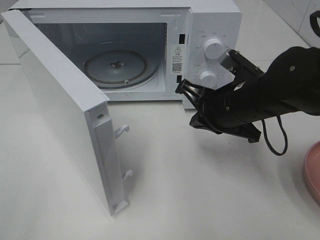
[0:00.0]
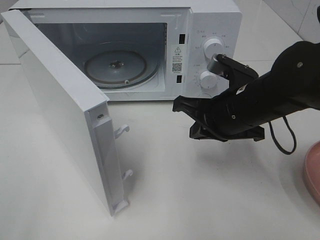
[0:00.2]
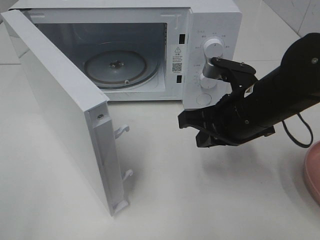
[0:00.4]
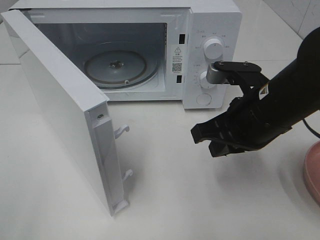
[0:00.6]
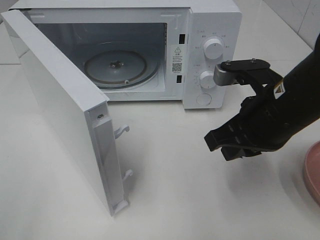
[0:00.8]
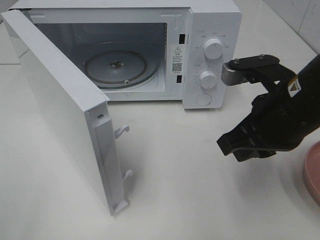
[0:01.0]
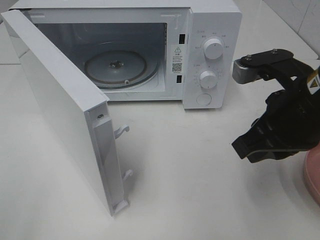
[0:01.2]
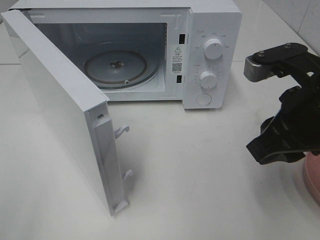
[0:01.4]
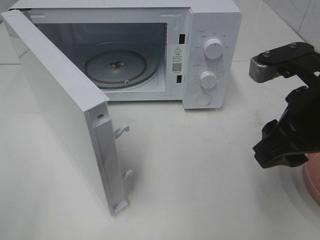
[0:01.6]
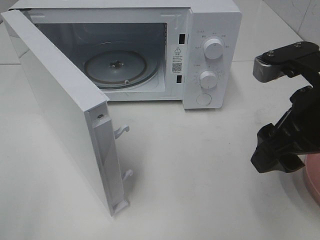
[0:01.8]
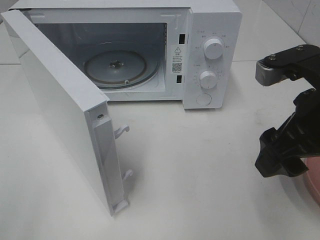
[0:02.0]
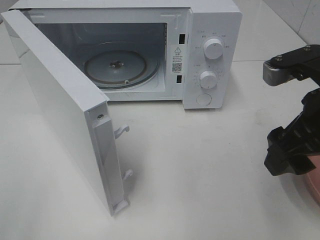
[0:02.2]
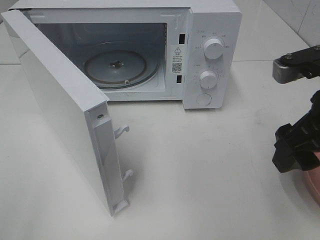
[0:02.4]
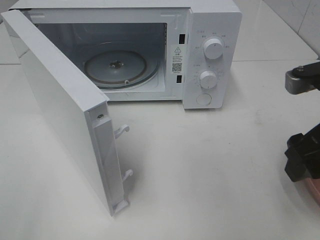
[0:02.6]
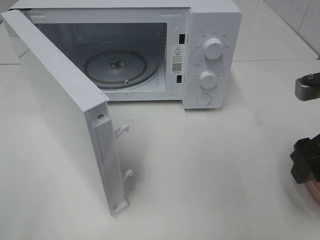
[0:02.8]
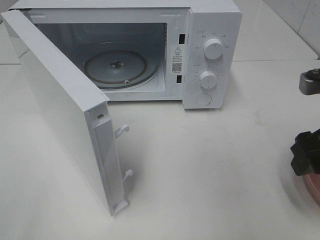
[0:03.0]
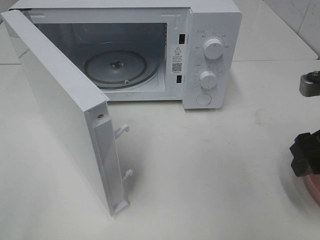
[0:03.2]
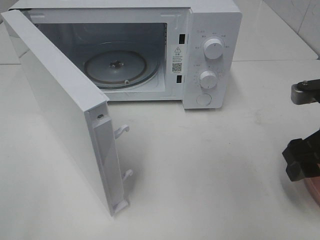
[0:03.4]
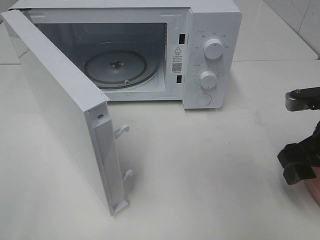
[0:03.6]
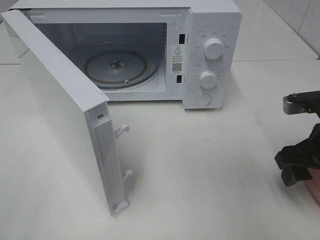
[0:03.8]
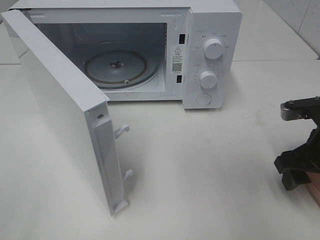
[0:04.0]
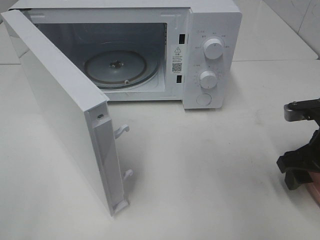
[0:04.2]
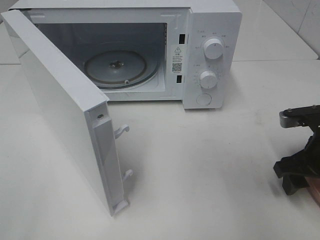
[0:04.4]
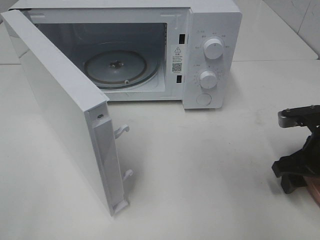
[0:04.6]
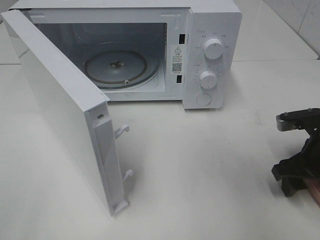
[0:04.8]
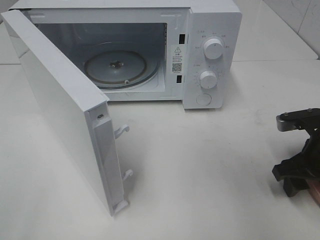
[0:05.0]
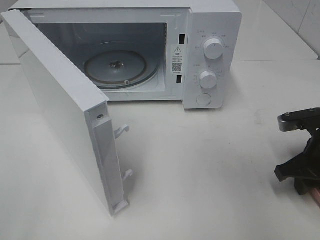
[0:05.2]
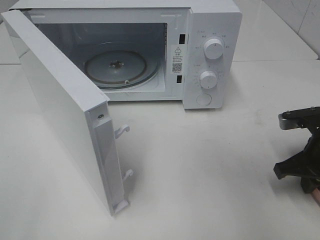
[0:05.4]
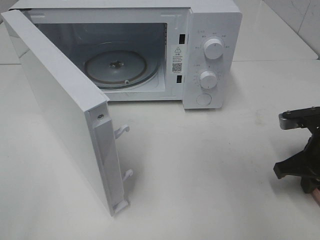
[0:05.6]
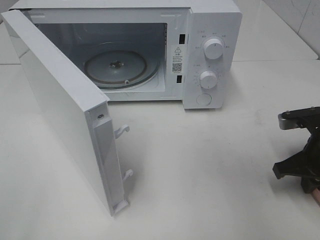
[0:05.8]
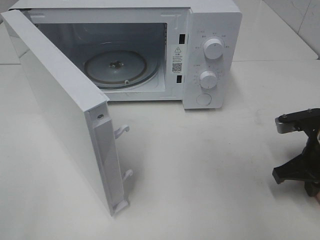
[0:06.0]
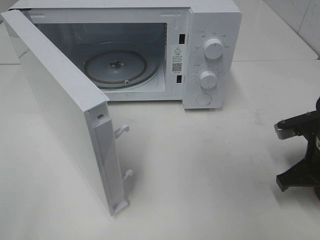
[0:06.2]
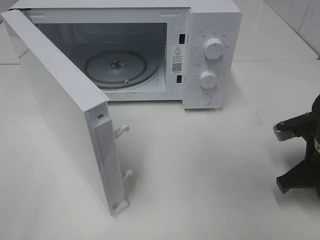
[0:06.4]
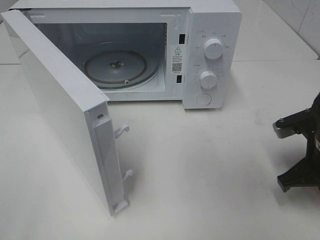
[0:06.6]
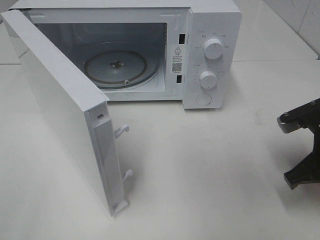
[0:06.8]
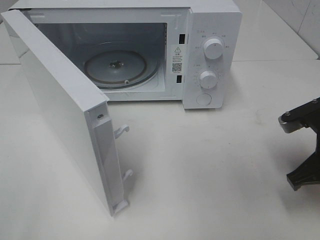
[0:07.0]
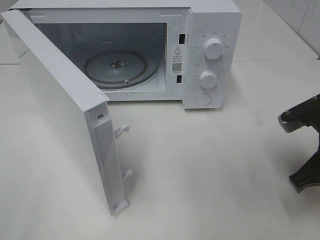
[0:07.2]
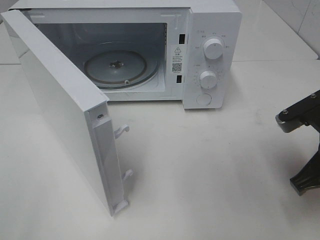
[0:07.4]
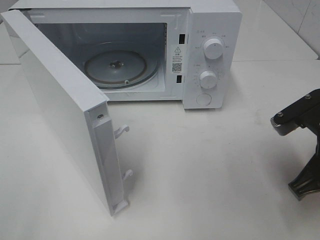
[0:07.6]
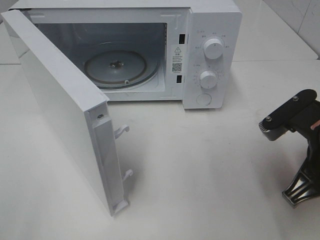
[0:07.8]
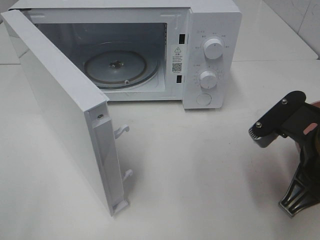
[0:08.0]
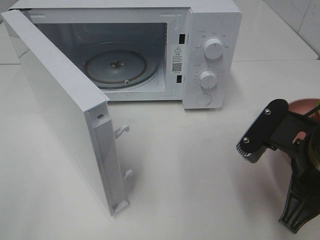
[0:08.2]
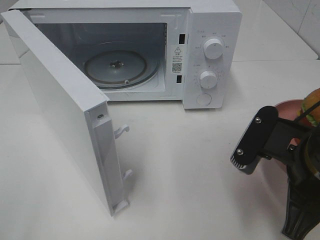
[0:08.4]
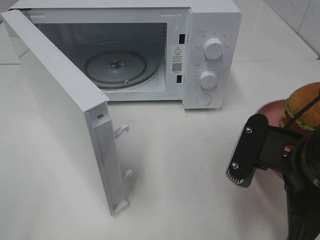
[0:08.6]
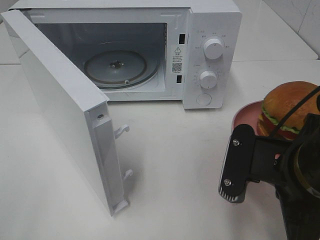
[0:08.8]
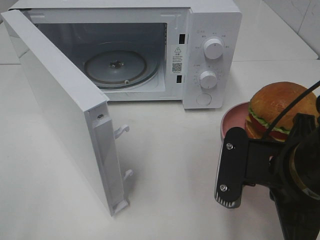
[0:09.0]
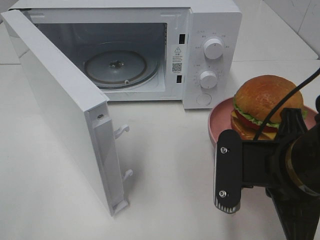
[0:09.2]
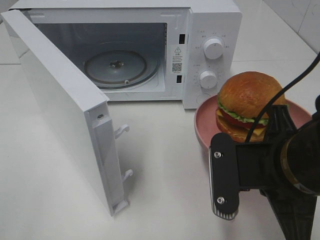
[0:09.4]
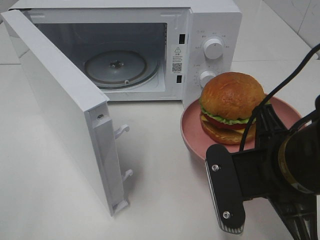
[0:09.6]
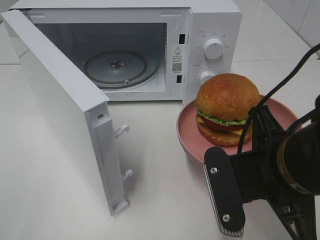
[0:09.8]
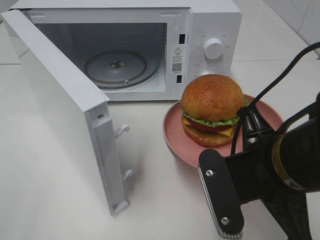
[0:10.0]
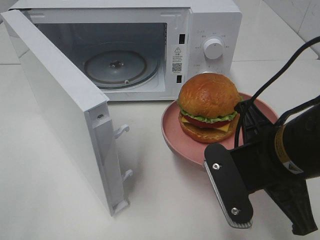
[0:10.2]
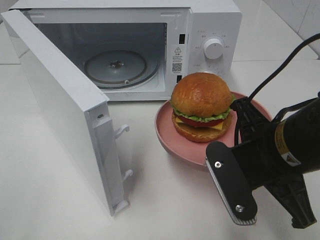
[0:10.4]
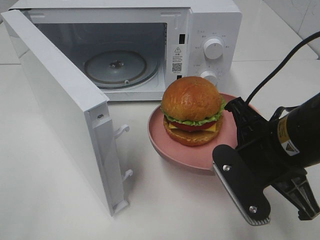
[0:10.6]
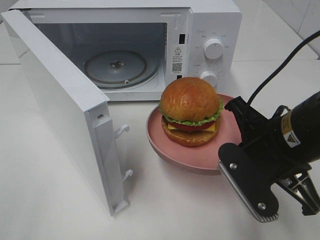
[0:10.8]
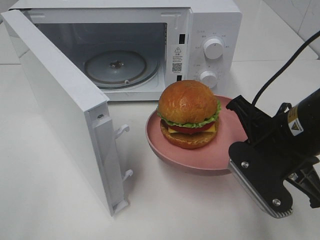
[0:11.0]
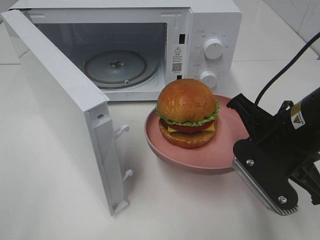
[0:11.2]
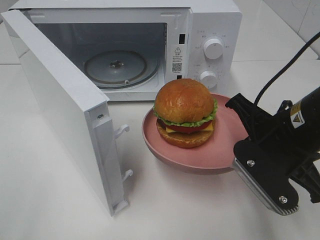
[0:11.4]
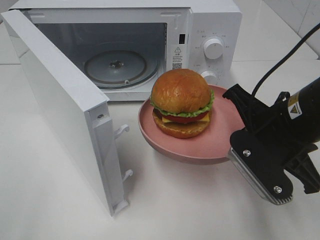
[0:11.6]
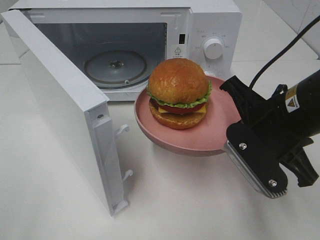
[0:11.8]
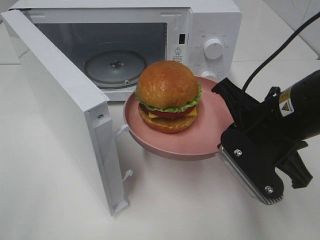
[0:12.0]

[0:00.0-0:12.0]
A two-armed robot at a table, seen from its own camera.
Task of the whole recording: Heat the burger.
Step, 0:00.0 to 0:05.8: Right hand: grab the plate with the hamburger.
0:00.0 to 0:01.6: The right gripper travels backward, upward and to the right by some 15 cm, and opens up.
0:01.6 to 0:03.0: The right gripper heads to the right, covering roughly 5 cm.
0:03.0 to 0:04.4: The right gripper moves downward, roughly 10 cm.
0:04.4 to 0:06.0: The right gripper closes.
0:06.0 to 0:07.6: The right gripper heads upward and backward, covering some 10 cm.
0:07.6 to 0:09.0: The right gripper heads to the left and backward, covering some 10 cm.

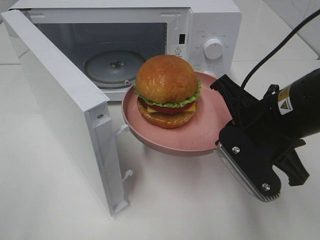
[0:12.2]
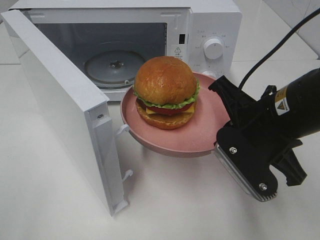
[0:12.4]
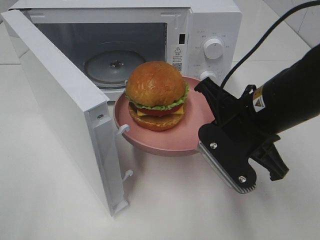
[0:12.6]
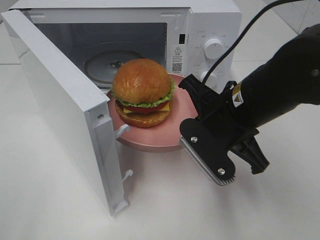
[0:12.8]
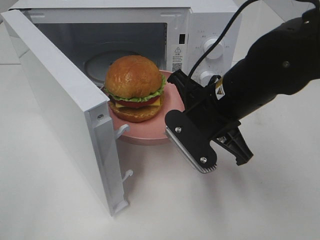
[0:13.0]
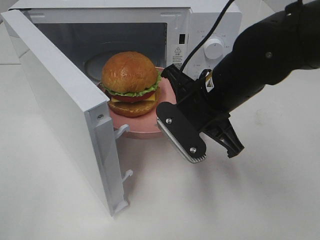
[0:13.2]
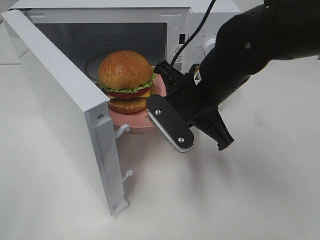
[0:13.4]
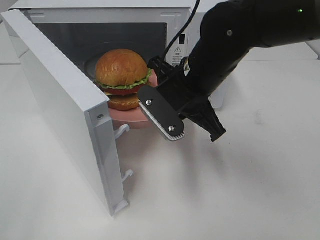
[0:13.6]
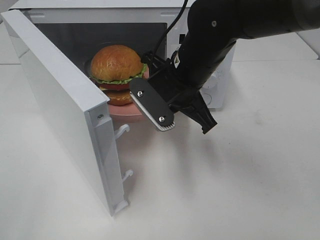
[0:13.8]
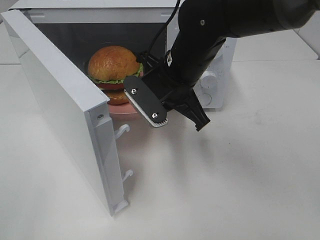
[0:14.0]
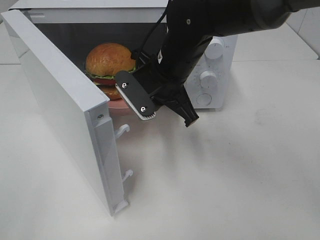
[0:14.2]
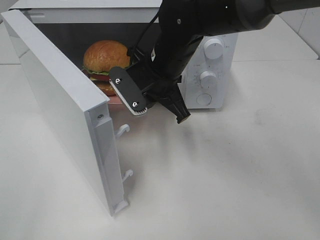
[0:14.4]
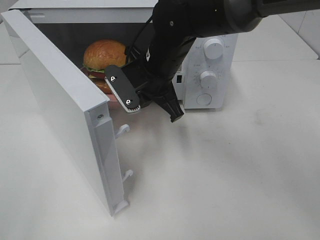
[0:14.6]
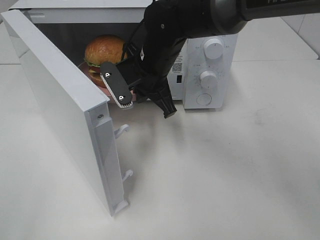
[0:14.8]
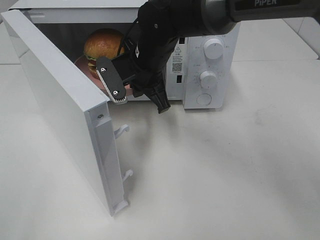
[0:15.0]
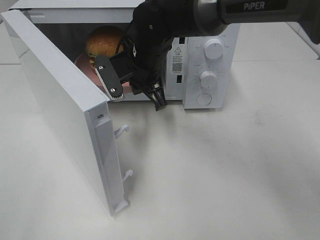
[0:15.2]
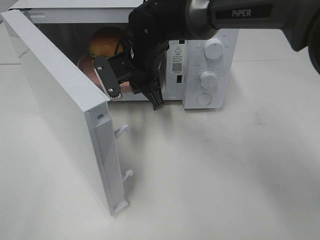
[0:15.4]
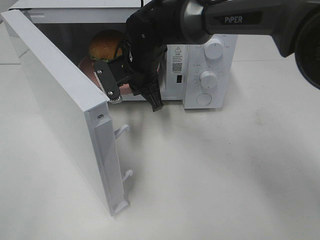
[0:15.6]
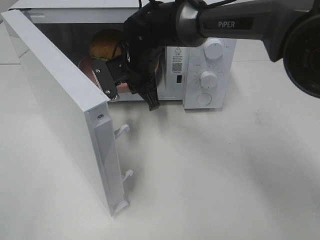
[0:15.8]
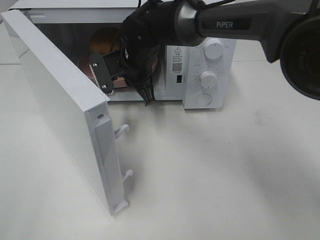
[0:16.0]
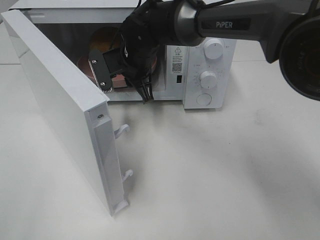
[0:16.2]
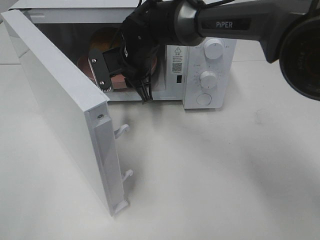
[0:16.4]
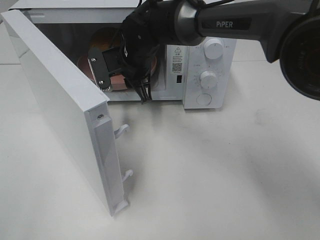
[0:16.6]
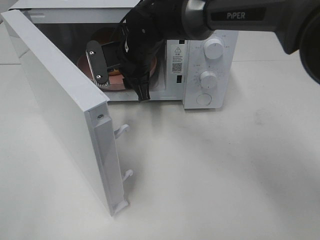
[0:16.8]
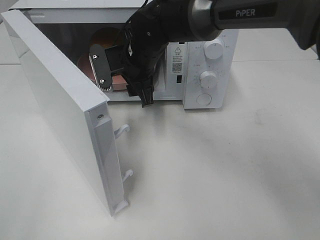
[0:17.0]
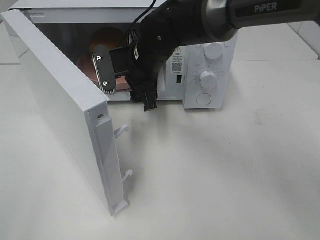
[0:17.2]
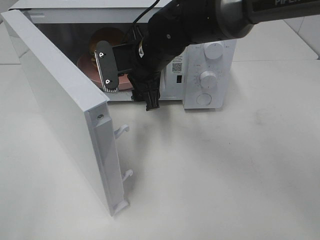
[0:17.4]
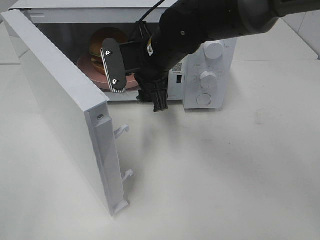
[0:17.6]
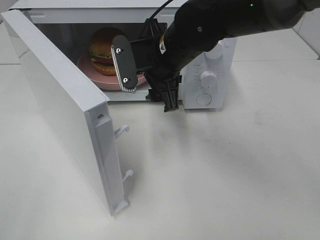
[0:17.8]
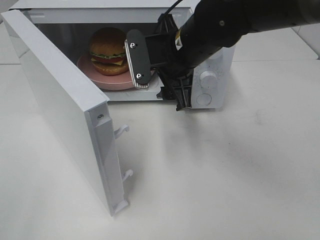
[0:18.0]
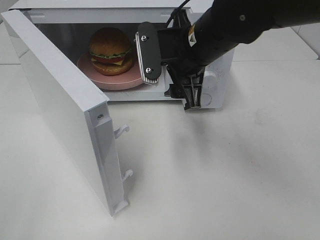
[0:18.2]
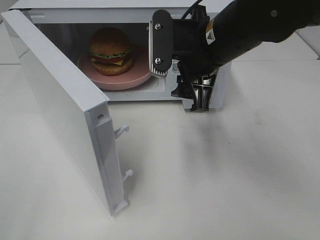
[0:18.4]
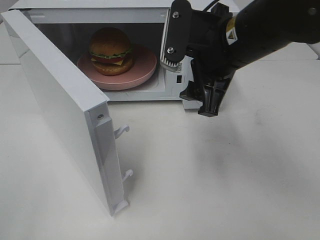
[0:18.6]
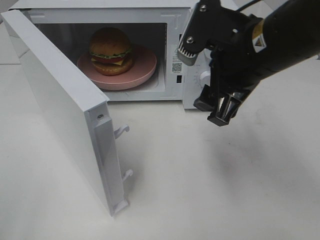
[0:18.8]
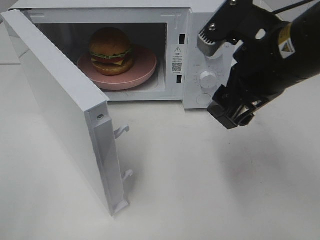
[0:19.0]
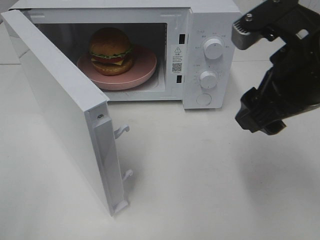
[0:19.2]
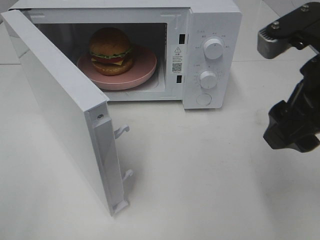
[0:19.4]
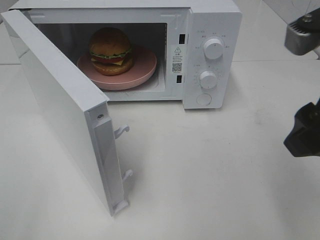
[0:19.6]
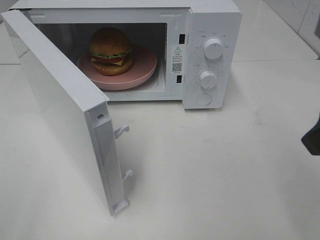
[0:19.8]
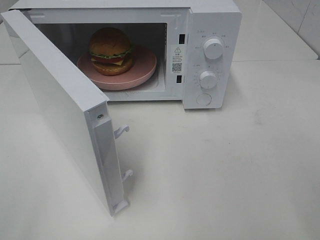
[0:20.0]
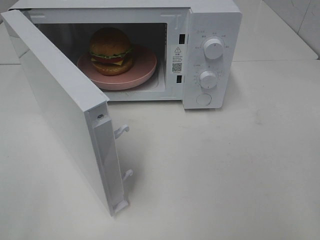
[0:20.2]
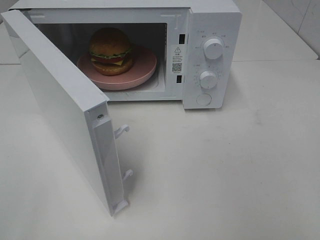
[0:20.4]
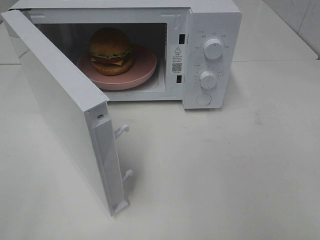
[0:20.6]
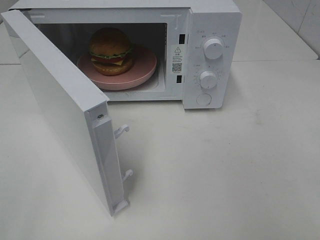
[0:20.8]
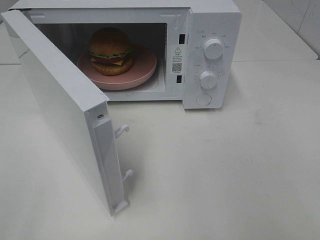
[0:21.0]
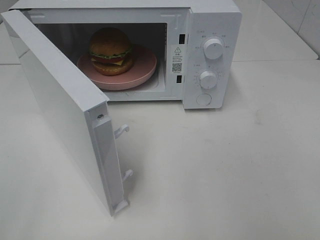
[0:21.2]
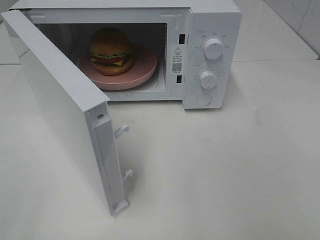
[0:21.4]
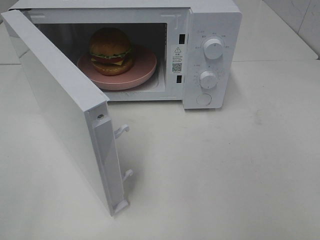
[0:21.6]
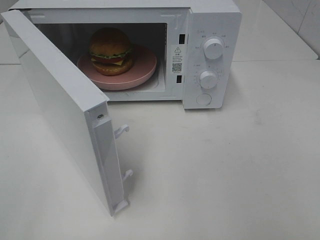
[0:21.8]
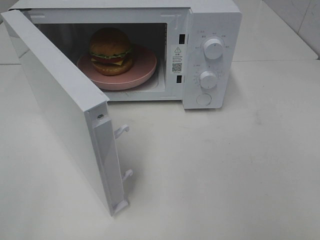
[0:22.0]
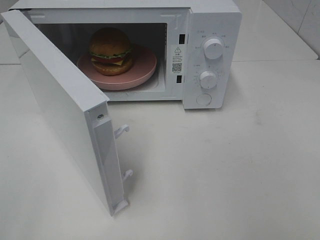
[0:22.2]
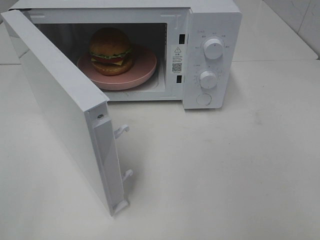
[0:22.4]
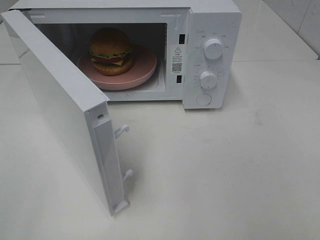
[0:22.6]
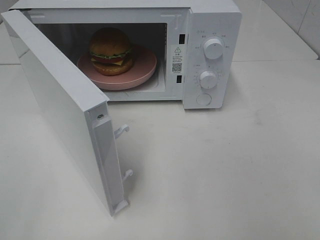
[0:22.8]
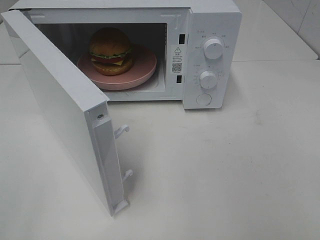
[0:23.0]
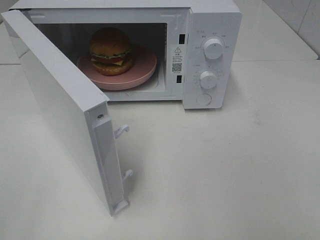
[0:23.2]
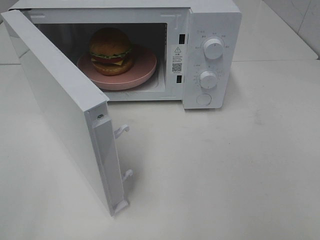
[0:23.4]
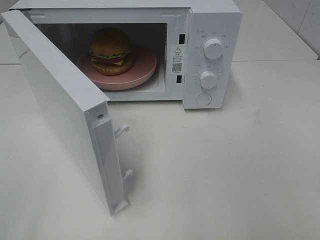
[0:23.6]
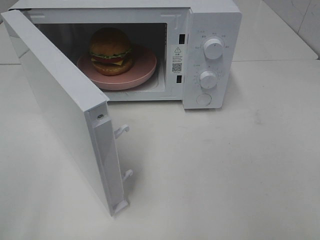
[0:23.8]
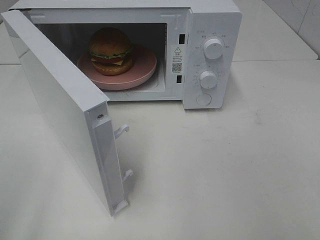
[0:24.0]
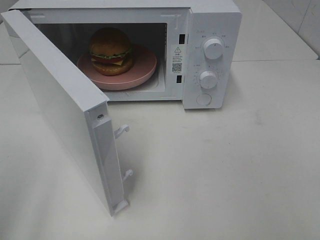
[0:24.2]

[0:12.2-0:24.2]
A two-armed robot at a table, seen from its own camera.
Task of the whole recording: Heat the burger.
Step, 0:12.2 to 0:16.6: Right hand: place the plate in the microwave.
0:12.2 to 0:13.8: The right gripper heads forward and to the left, covering about 15 cm.
0:13.8 to 0:15.2: The right gripper shifts about 10 cm forward and to the left.
0:15.2 to 0:16.6: The right gripper opens its fingers.
0:16.6 to 0:18.2: The right gripper shifts some 15 cm backward, to the right and upward, and opens up.
0:18.2 to 0:19.8: The right gripper heads backward, to the right and upward, covering about 25 cm.
0:19.8 to 0:21.2: The right gripper shifts about 15 cm backward and to the right.
0:21.2 to 0:22.6: The two grippers keep their place.
